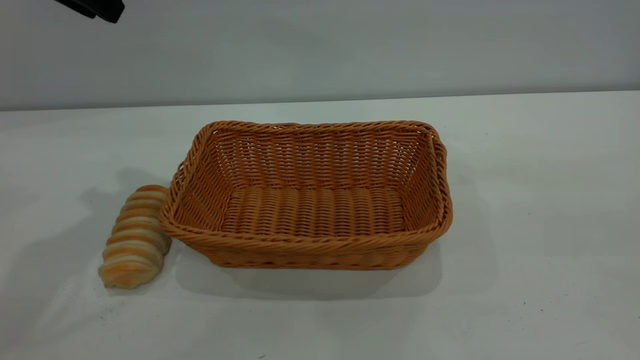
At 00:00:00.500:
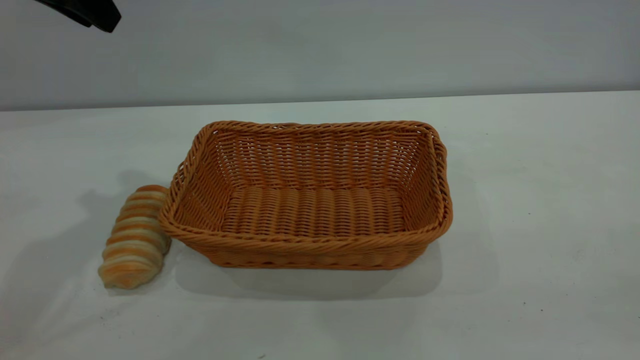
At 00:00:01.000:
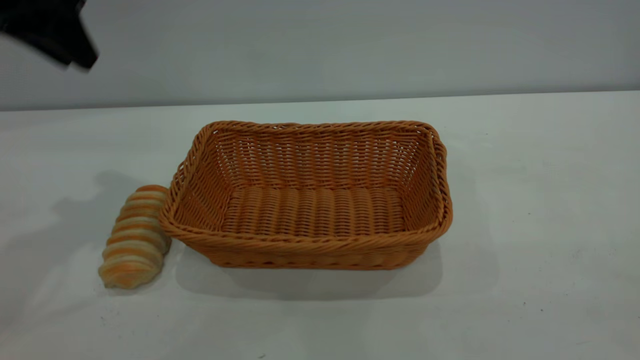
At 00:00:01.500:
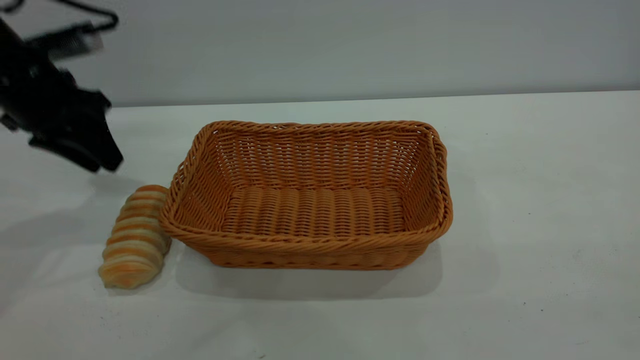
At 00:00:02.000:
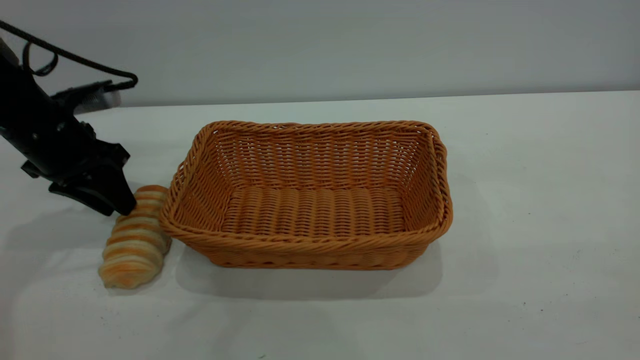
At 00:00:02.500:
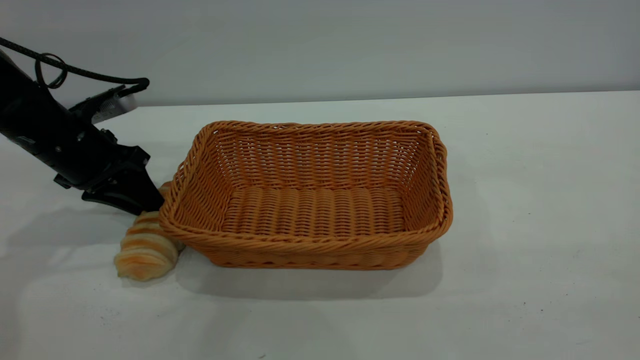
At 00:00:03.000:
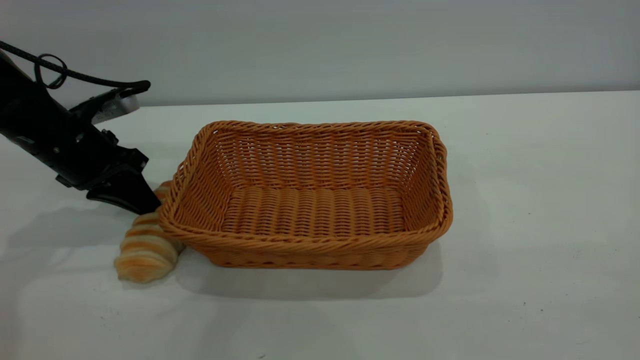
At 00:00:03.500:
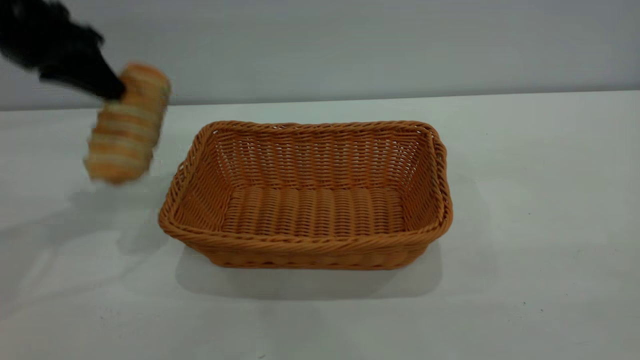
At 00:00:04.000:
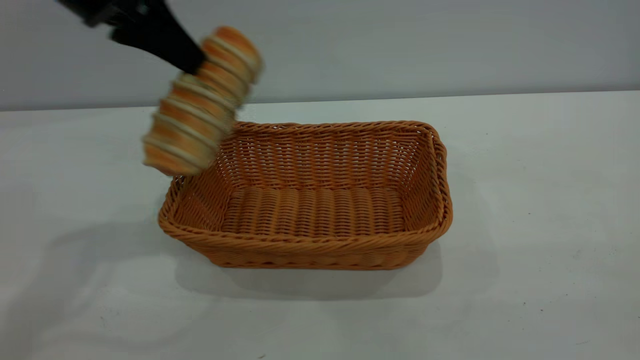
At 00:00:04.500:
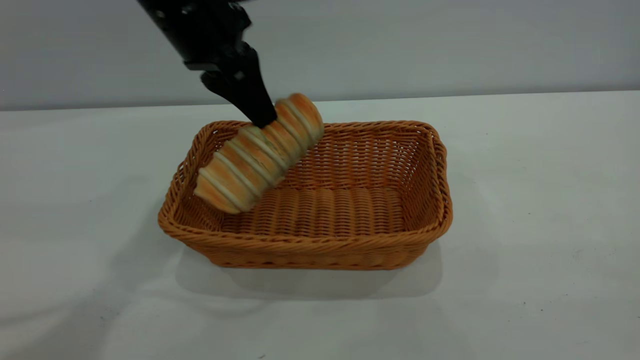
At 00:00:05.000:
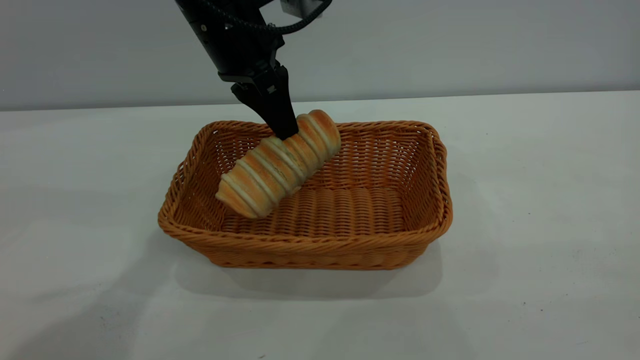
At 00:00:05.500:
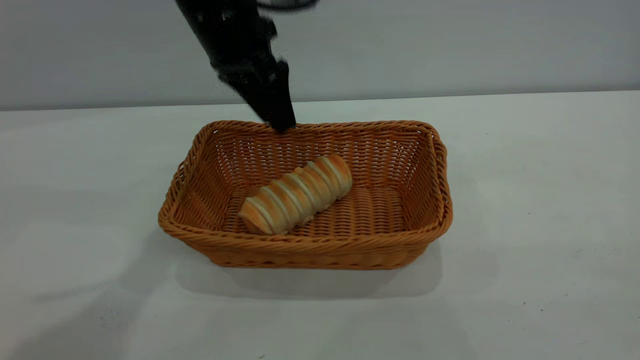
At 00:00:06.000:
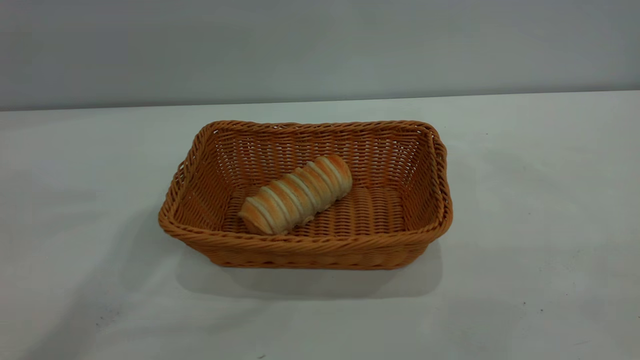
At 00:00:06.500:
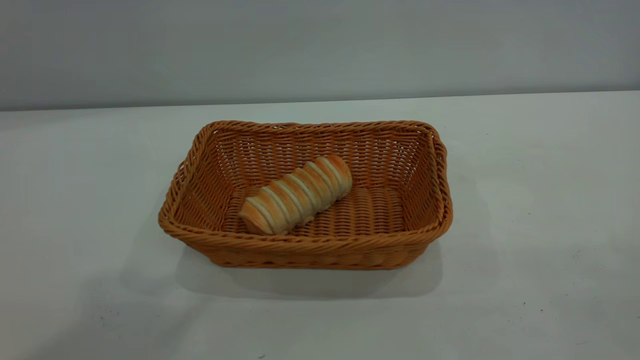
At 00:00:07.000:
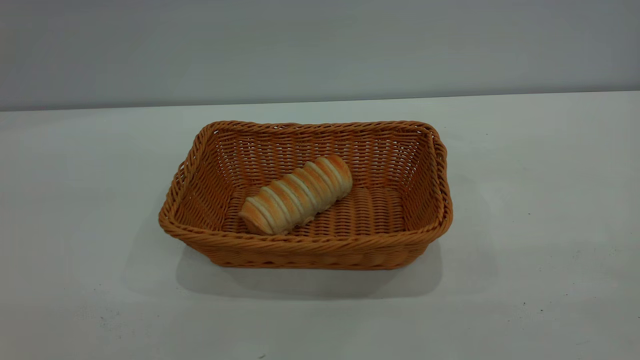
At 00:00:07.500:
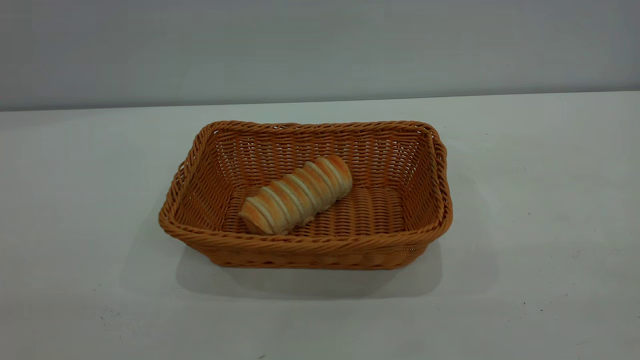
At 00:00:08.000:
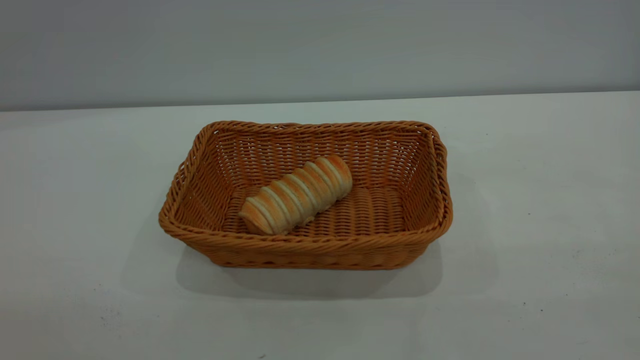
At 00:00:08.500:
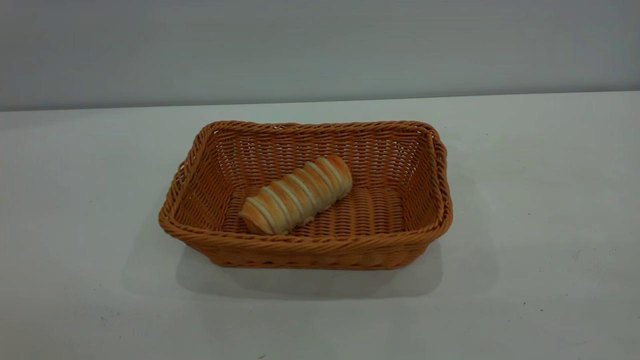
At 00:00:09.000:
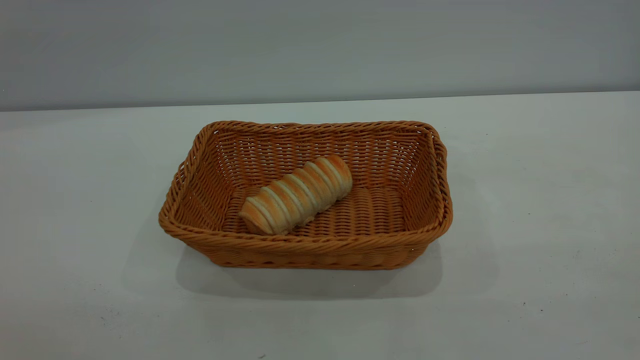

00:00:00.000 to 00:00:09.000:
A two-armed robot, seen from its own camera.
Task of the whole recording: One hand grasps the yellow basket and places it in the middle of the table, while the other hand picks up the long bread and puts it into the yellow basket.
Step, 00:00:03.500 to 00:00:05.500: place the bread into the basket.
00:00:00.000 to 00:00:02.000: The left gripper is displaced downward by some 20 cm.
00:00:02.000 to 00:00:04.500: The right gripper closes. The left gripper goes roughly 20 cm to the right and upward, and closes.
00:00:04.500 to 00:00:07.000: The left gripper goes roughly 50 cm backward and upward, and opens its fingers.

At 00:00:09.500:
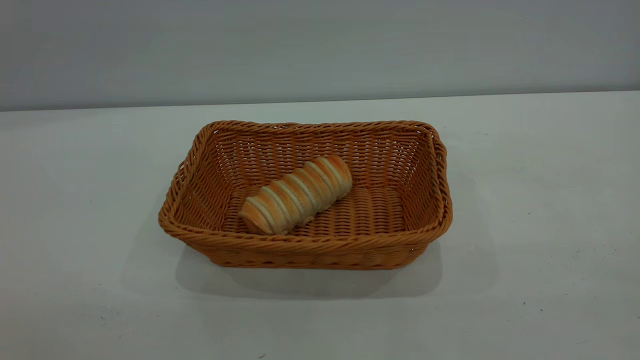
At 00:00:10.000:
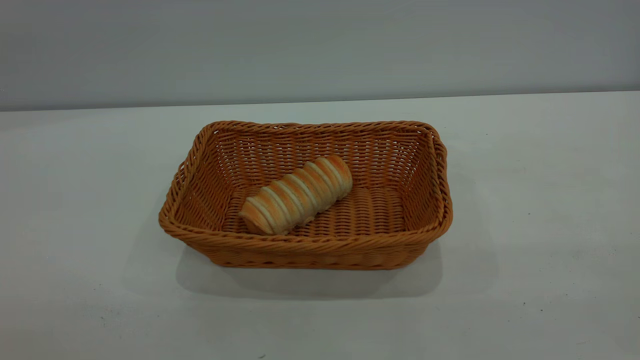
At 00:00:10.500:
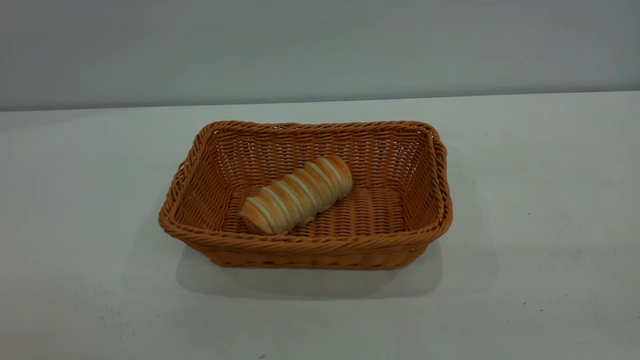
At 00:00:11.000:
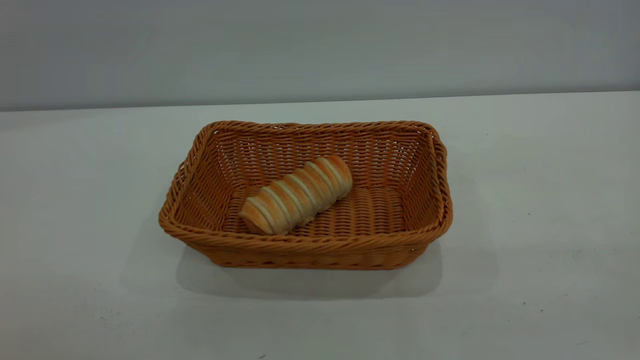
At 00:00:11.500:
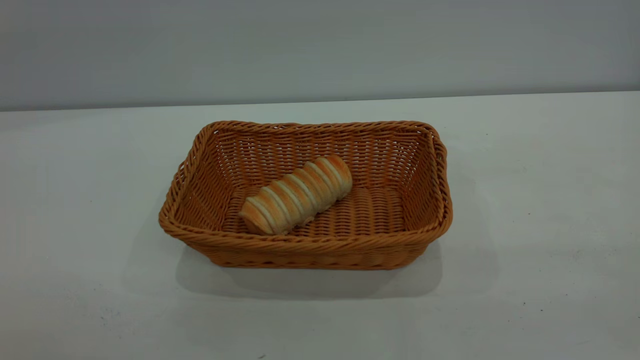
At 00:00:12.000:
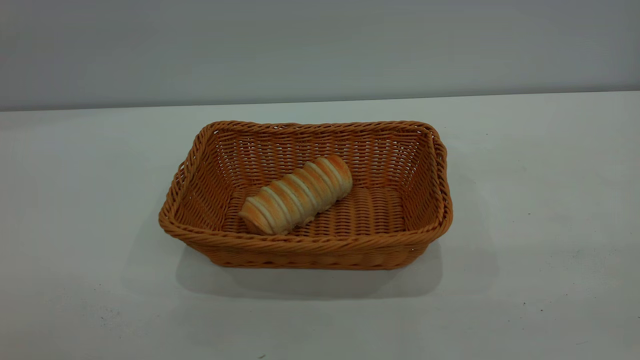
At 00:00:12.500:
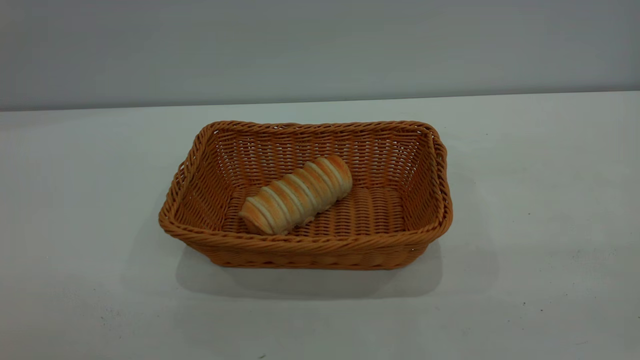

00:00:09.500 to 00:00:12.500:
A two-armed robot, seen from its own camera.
Task of the whole recording: One hand grasps the yellow basket and places it in the middle of the table, while the other hand picks up the long bread and puts it into the yellow basket.
00:00:11.000 to 00:00:12.500: The two grippers keep their place.
